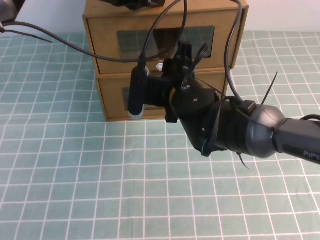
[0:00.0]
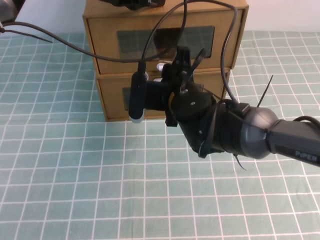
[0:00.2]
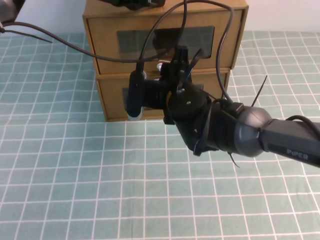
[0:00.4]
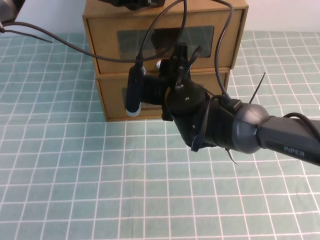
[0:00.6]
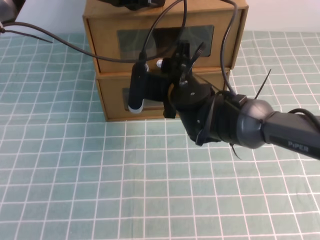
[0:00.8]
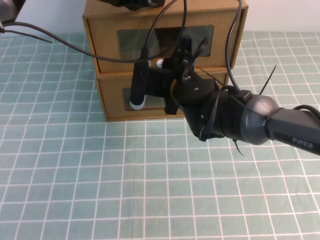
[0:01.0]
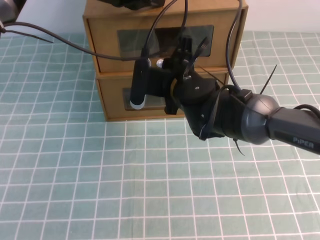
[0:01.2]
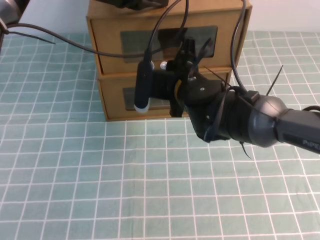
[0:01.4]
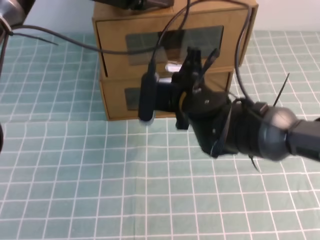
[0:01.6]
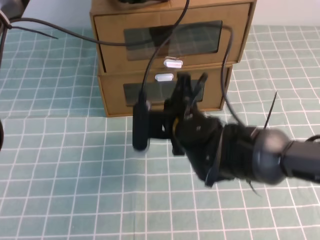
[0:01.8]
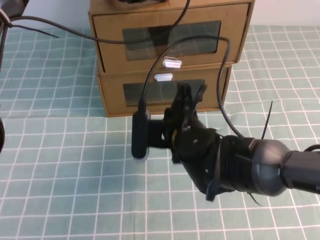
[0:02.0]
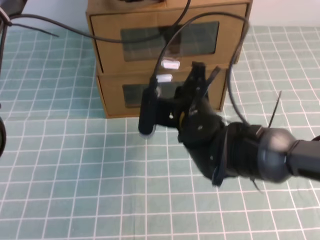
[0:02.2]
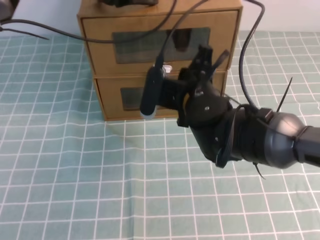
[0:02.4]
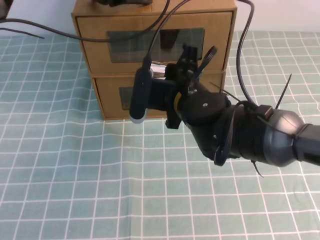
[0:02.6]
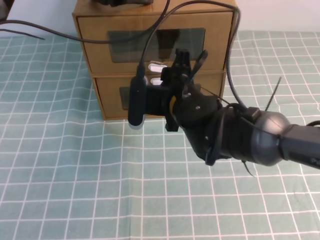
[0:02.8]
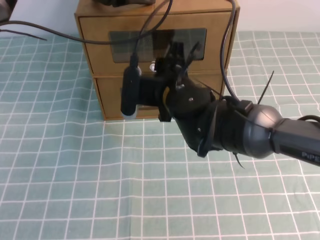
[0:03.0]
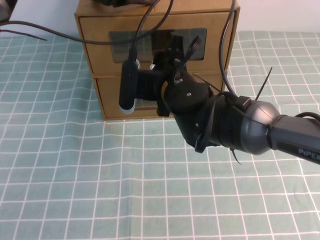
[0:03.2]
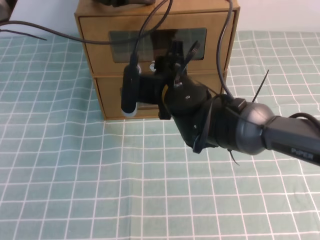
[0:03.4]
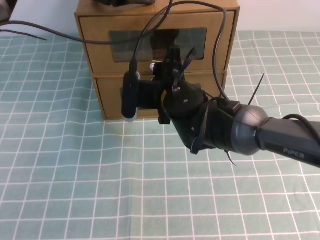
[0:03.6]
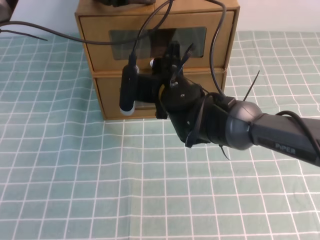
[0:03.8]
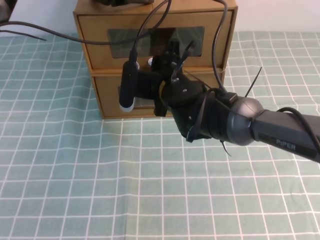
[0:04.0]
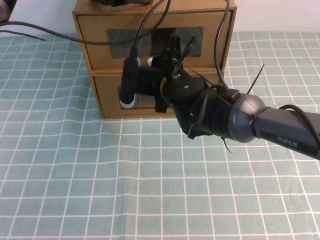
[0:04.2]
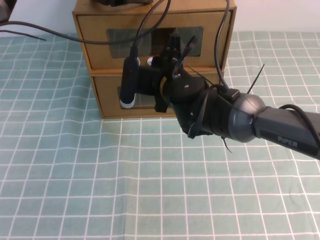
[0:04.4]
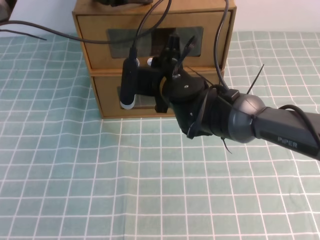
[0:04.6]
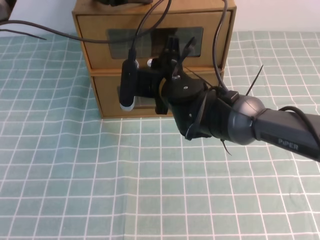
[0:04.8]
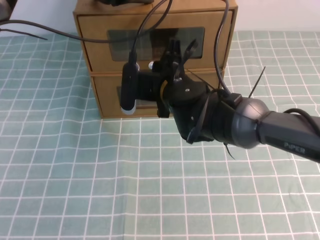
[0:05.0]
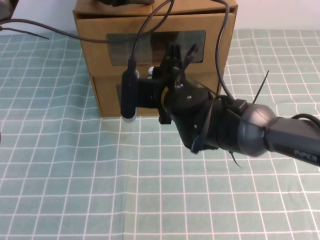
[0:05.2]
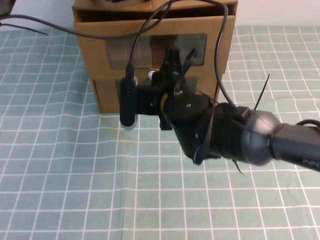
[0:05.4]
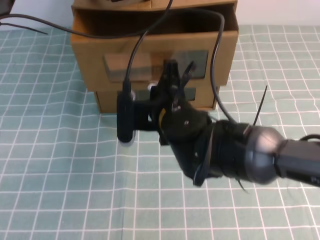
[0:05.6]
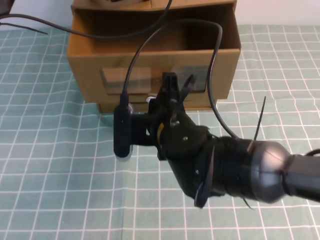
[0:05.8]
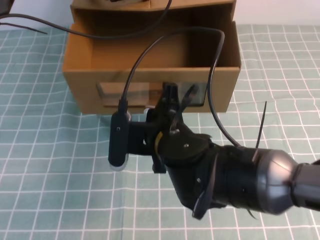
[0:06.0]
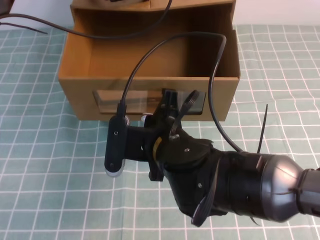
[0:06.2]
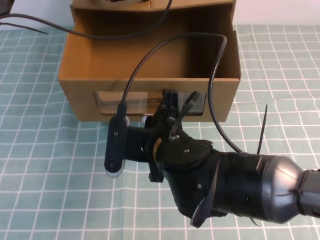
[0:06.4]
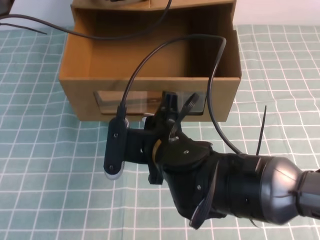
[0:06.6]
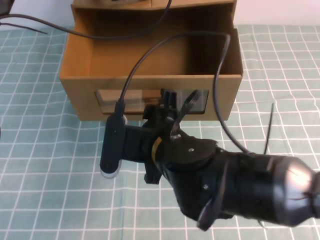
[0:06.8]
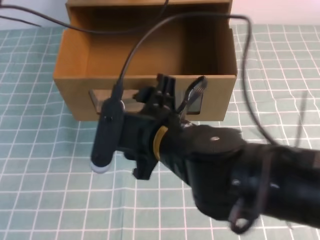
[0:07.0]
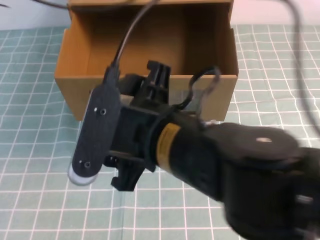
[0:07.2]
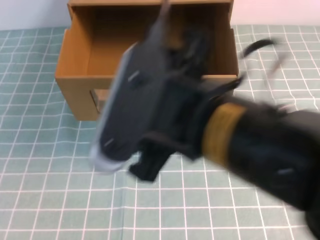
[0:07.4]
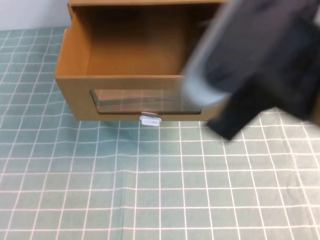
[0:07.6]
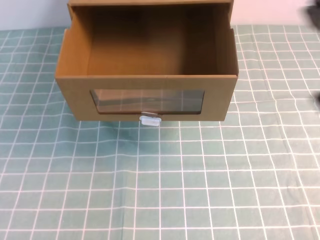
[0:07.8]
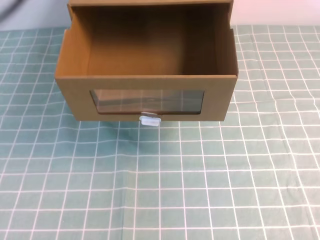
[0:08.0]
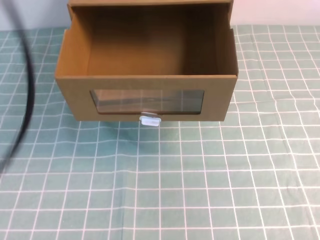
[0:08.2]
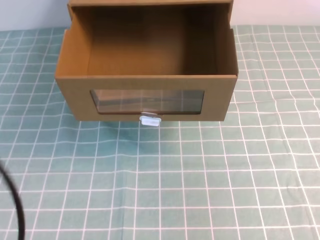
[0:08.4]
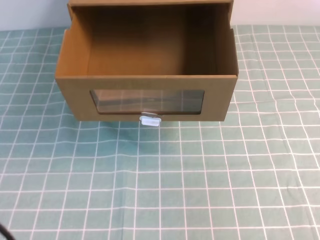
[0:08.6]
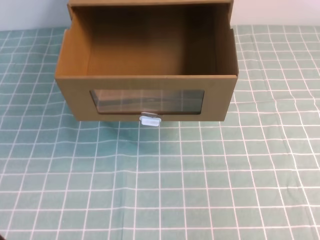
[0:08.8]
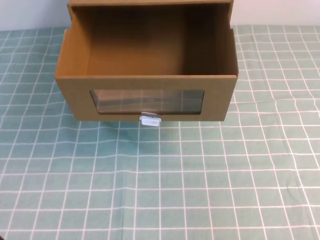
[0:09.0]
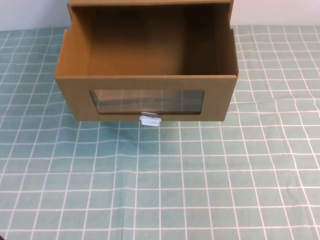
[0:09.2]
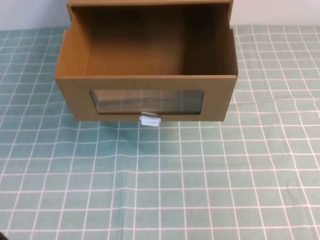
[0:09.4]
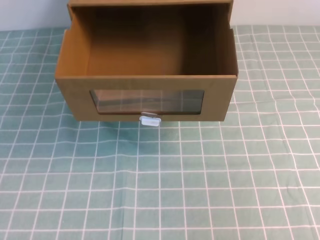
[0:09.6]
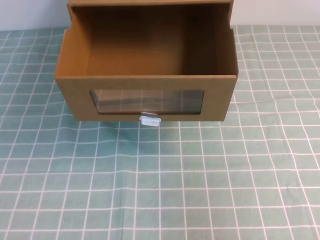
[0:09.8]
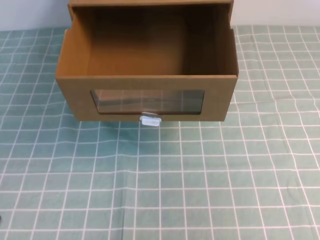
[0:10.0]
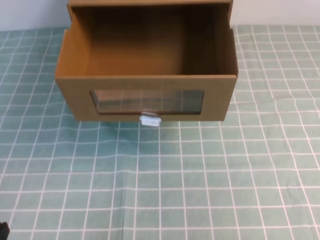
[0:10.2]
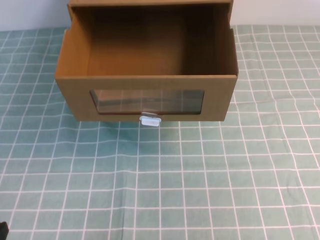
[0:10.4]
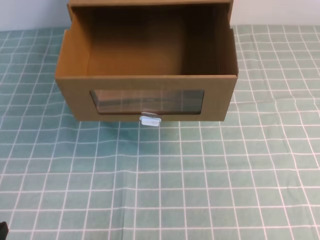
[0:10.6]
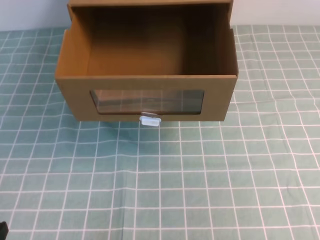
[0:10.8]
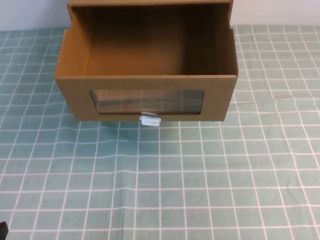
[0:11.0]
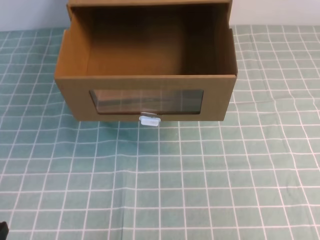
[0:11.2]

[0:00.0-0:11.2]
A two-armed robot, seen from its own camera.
Task of the whole recording: open the shoebox on the cyan tablecloth.
0:00.0 to 0:01.6: The right gripper closes.
0:01.6 to 0:03.2: The right gripper opens up.
0:03.2 to 0:04.8: The right gripper closes up.
0:04.8 to 0:06.4: The right gripper moves backward, approximately 15 cm.
0:06.4 to 0:08.0: The left gripper goes about 35 cm backward and upward. Meanwhile the right gripper heads to the right, upward and backward, covering some 35 cm, and opens, then closes again.
0:08.0 to 0:09.6: The left gripper shifts approximately 25 cm downward and backward. The right gripper moves downward, roughly 10 cm.
